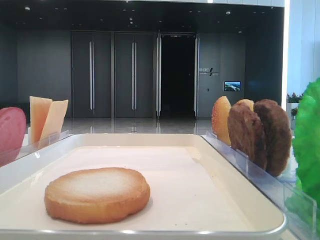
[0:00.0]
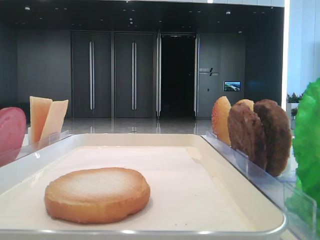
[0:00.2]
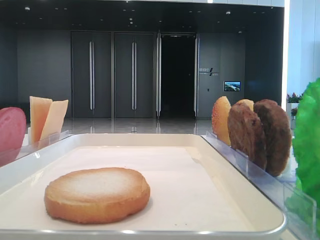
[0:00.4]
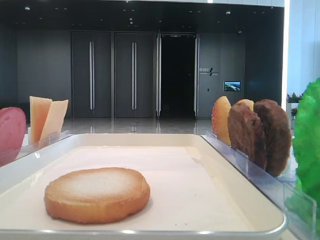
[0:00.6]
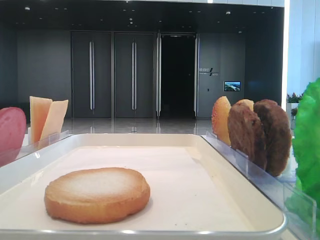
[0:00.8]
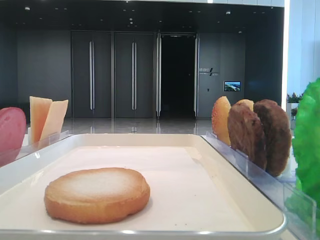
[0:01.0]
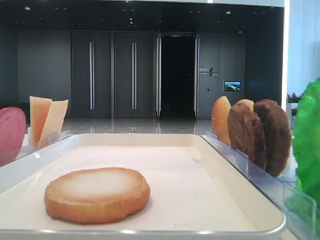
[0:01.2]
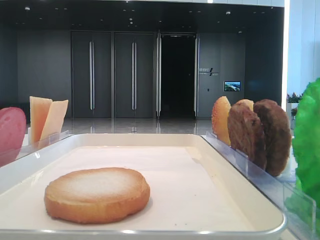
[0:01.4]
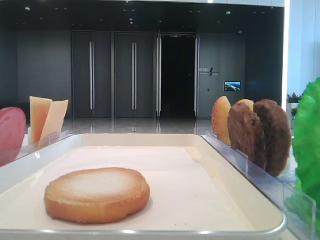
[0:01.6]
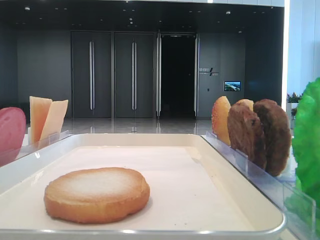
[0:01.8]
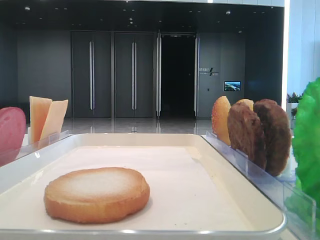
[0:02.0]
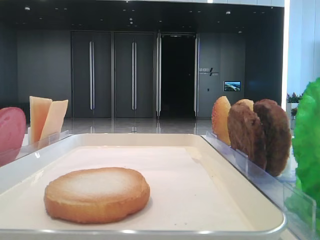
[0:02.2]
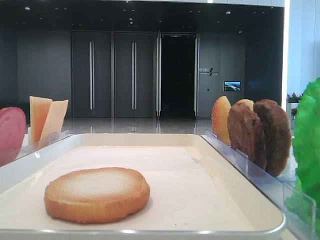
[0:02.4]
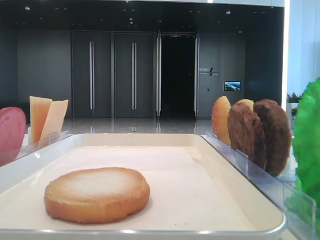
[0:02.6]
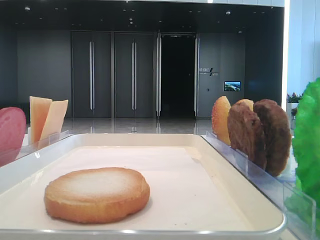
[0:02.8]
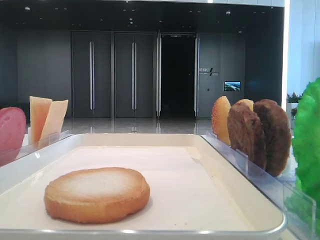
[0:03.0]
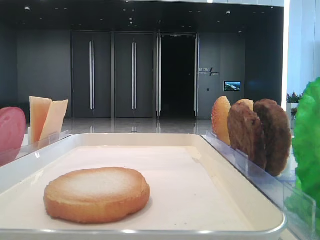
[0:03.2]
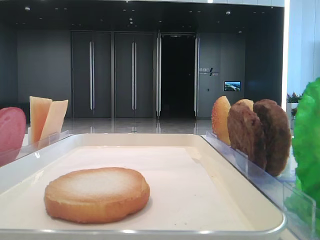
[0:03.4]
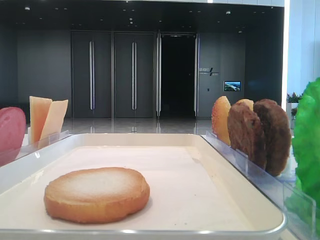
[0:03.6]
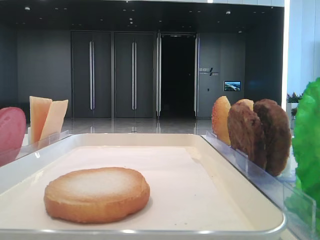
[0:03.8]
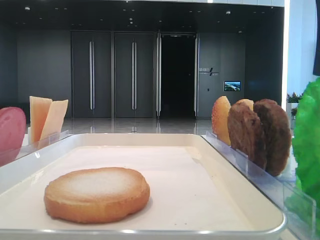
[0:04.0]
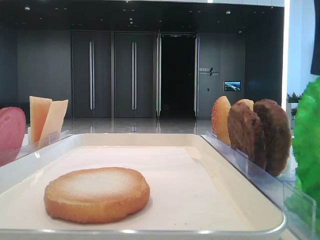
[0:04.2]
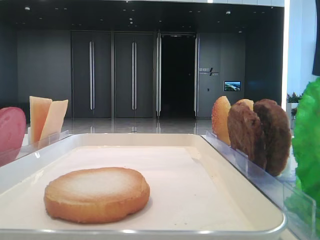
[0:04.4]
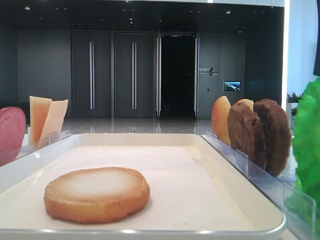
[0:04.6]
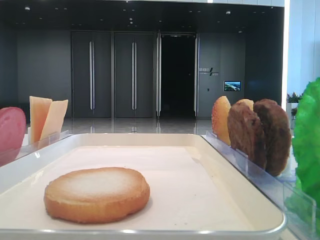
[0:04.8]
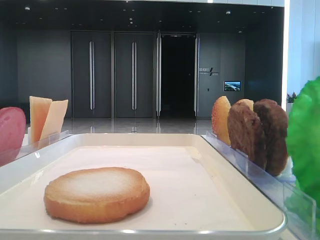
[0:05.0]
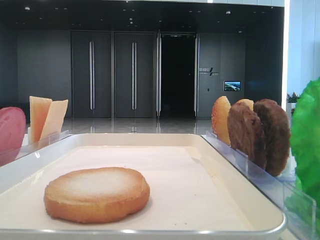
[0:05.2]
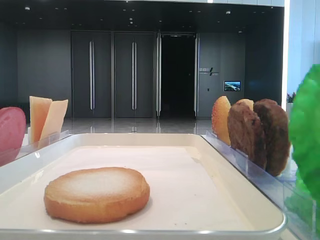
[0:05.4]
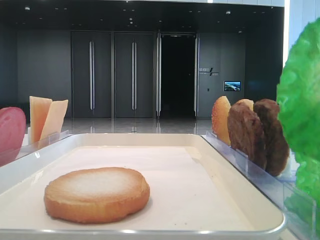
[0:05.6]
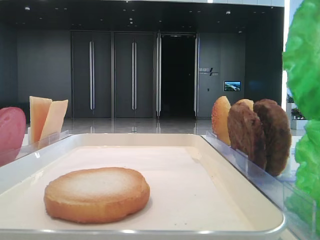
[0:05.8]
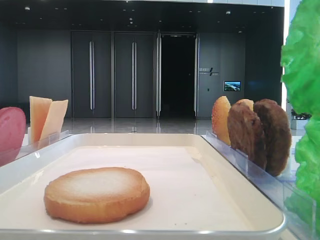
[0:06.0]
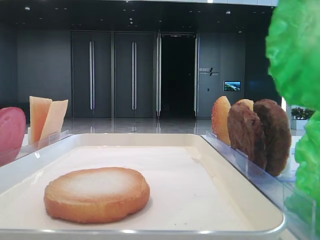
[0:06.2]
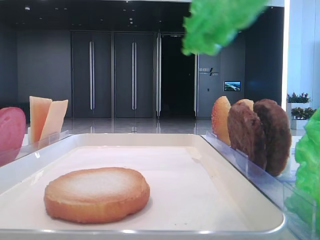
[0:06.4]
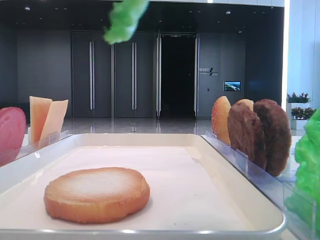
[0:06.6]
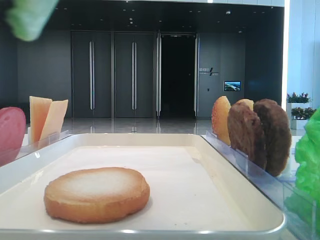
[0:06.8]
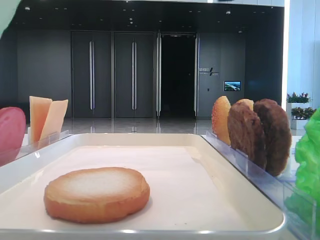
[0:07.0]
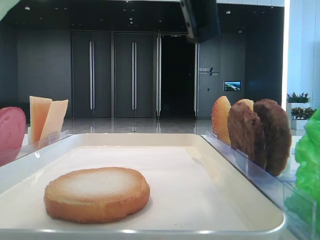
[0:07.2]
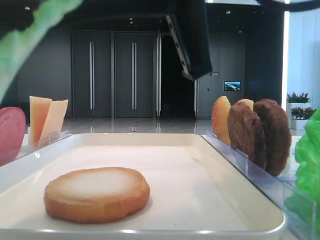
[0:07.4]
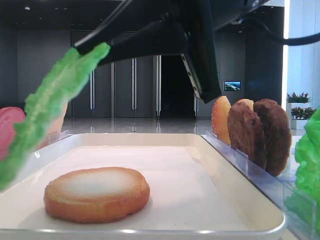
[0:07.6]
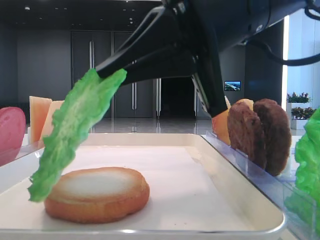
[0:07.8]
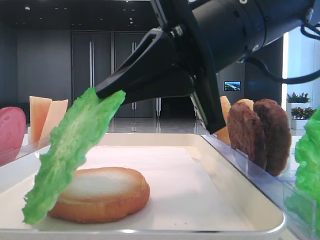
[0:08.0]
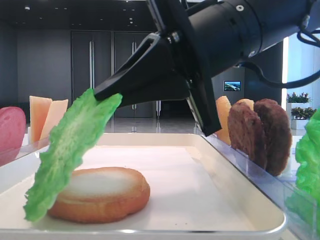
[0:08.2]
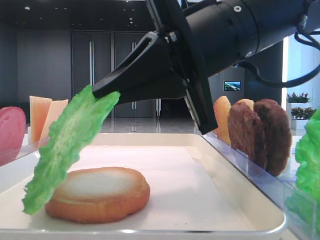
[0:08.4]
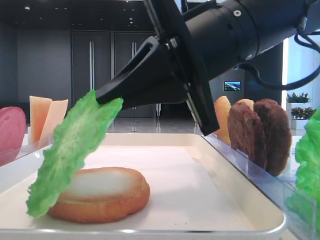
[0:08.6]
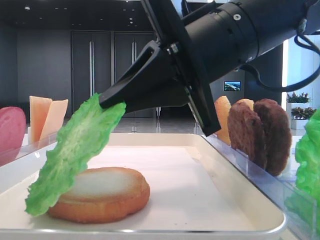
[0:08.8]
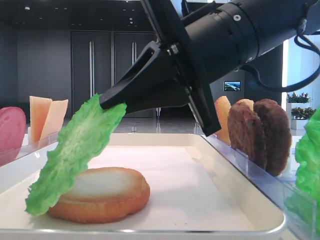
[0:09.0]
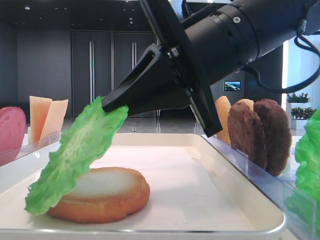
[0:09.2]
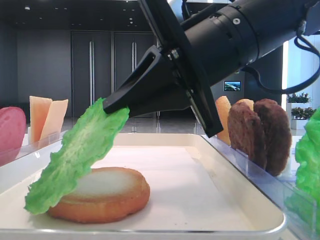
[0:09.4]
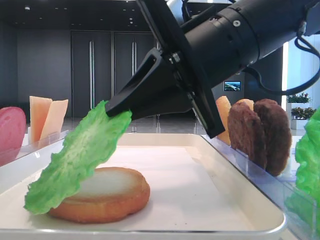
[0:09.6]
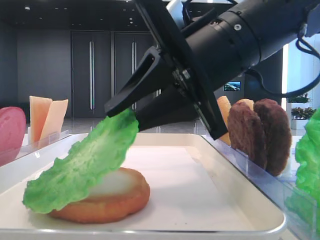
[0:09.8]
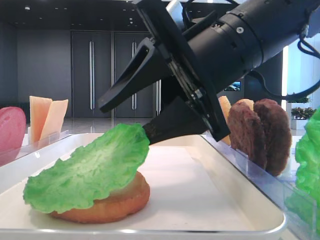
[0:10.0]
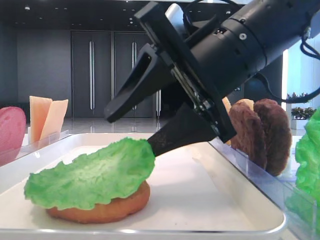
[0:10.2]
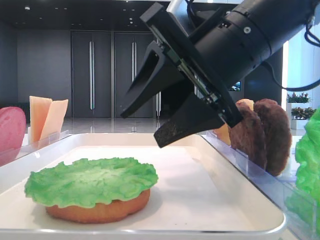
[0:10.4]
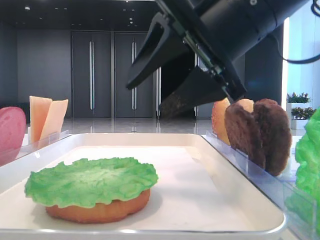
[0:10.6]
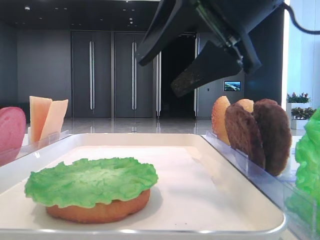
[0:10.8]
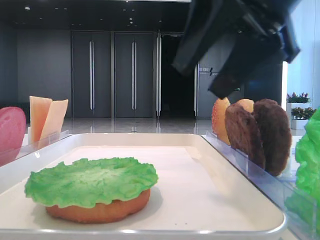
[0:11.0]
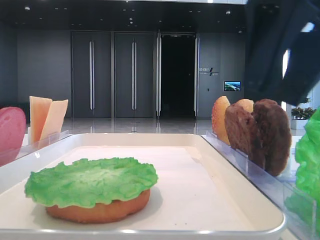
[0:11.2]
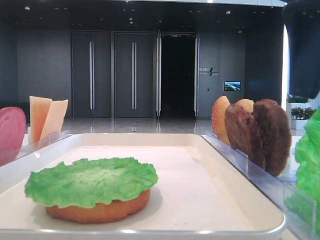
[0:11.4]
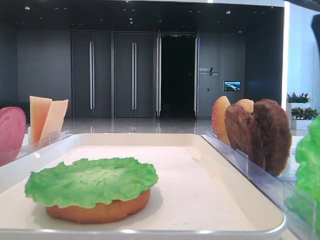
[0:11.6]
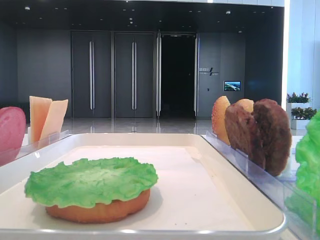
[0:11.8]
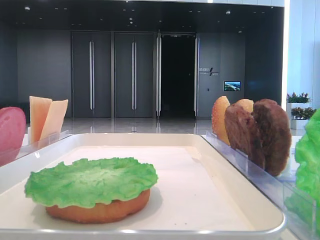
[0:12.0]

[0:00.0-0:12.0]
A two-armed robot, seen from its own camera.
Step, 0:05.0 to 0:10.2: Place the lettuce leaf on the bottom bread with the right hand.
0:04.4 to 0:06.0: The right gripper is displaced upward by roughly 5 cm, and closes.
0:06.0 to 0:07.6: The right gripper goes about 20 cm downward, to the left and forward.
0:09.0 to 0:10.4: The right gripper opens.
0:10.4 to 0:12.0: The right gripper travels to the right by about 25 cm.

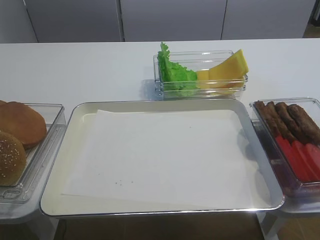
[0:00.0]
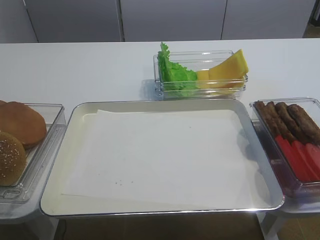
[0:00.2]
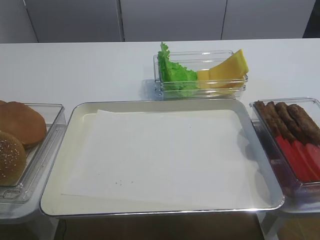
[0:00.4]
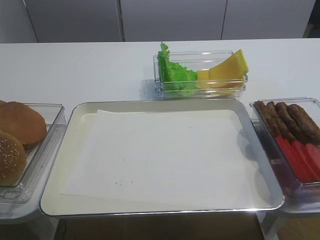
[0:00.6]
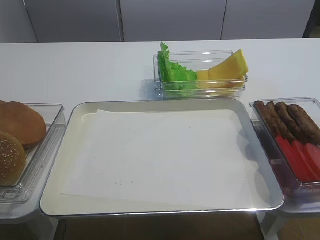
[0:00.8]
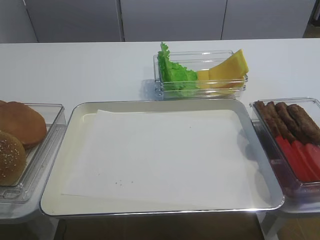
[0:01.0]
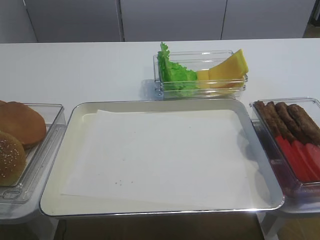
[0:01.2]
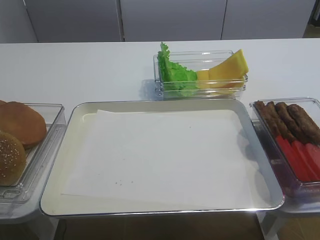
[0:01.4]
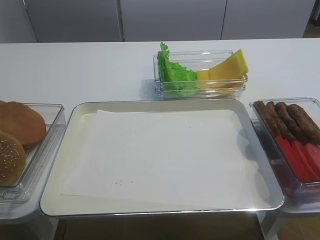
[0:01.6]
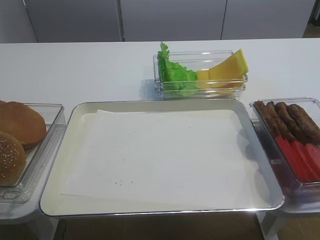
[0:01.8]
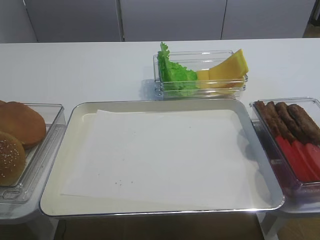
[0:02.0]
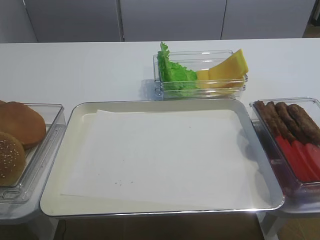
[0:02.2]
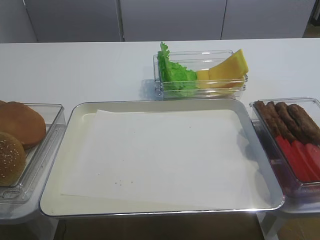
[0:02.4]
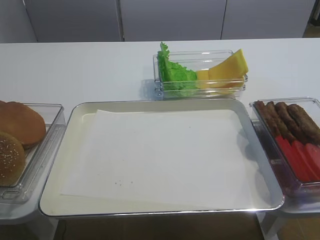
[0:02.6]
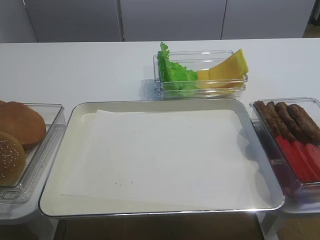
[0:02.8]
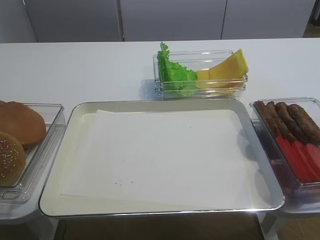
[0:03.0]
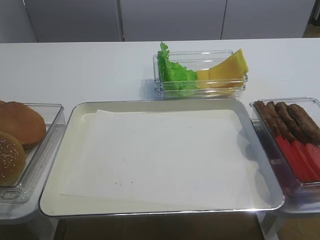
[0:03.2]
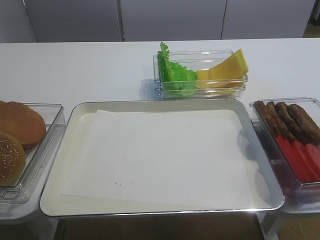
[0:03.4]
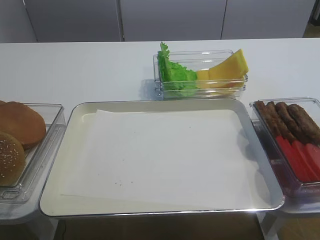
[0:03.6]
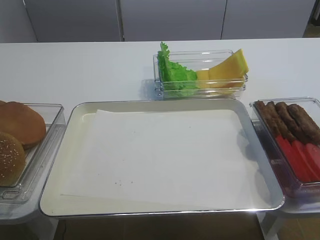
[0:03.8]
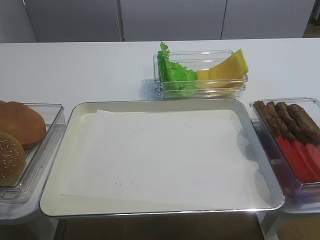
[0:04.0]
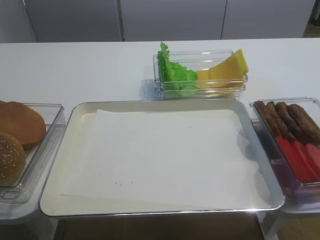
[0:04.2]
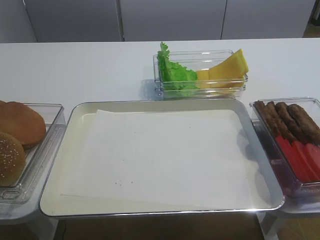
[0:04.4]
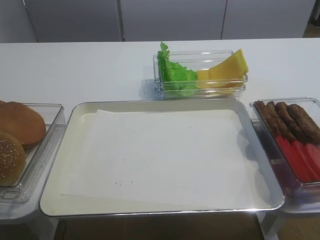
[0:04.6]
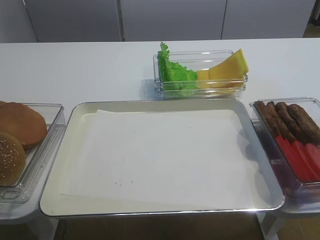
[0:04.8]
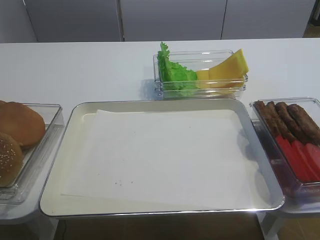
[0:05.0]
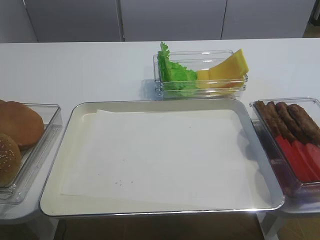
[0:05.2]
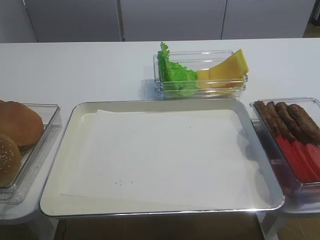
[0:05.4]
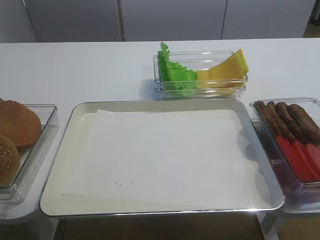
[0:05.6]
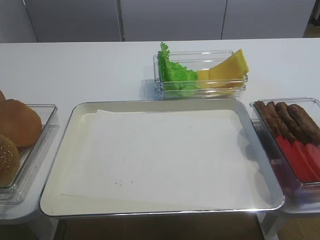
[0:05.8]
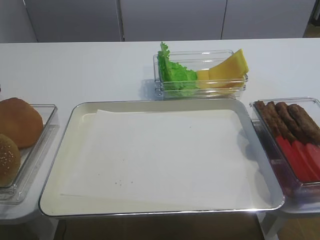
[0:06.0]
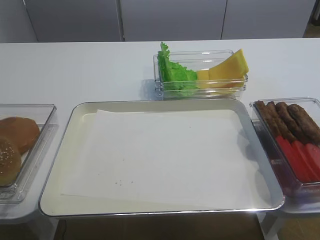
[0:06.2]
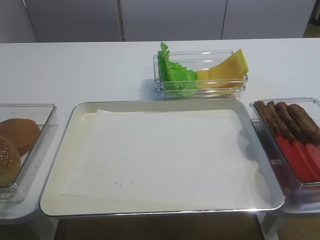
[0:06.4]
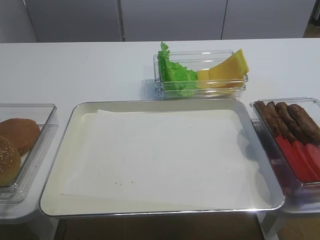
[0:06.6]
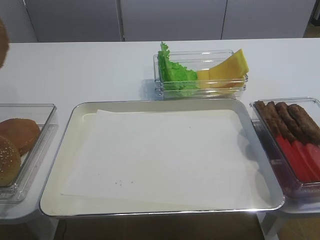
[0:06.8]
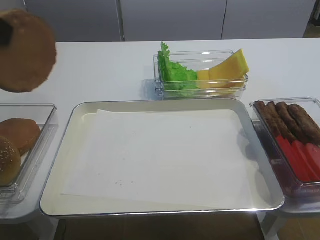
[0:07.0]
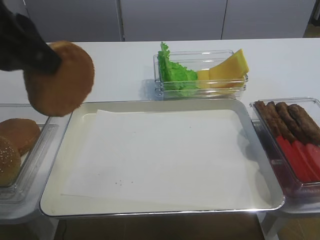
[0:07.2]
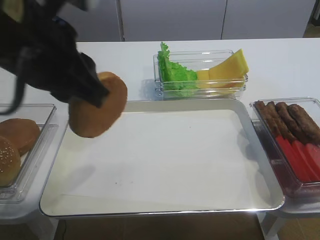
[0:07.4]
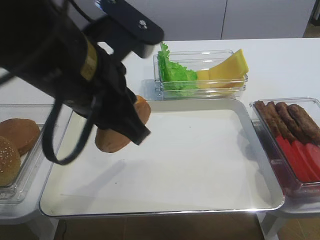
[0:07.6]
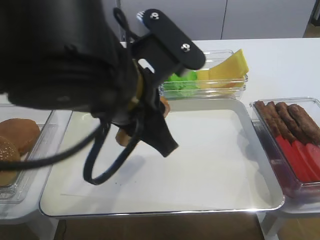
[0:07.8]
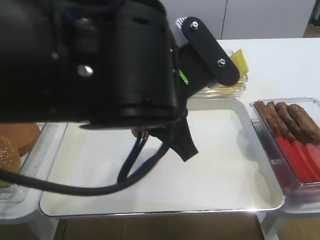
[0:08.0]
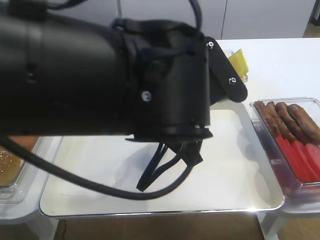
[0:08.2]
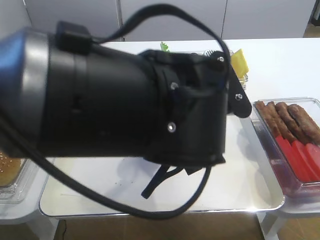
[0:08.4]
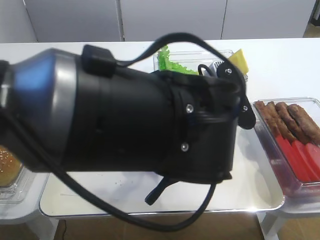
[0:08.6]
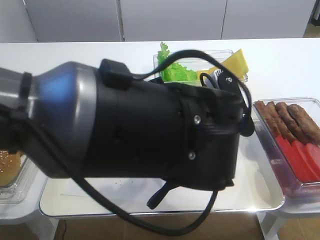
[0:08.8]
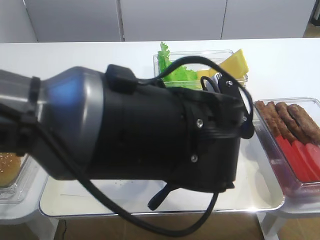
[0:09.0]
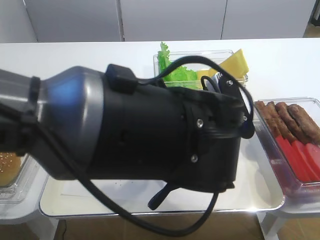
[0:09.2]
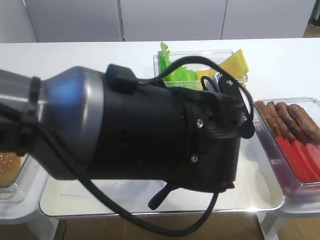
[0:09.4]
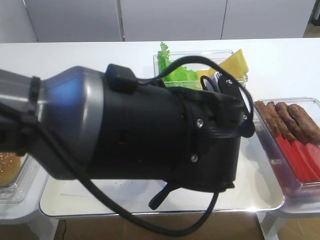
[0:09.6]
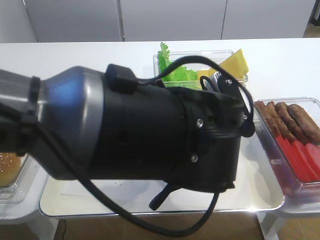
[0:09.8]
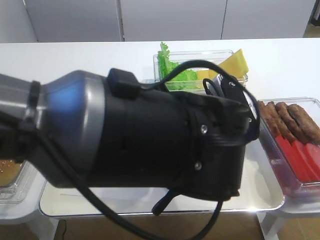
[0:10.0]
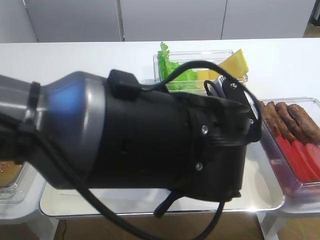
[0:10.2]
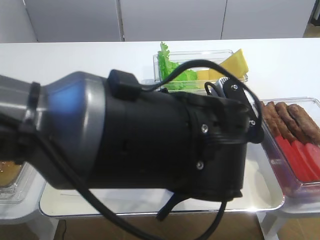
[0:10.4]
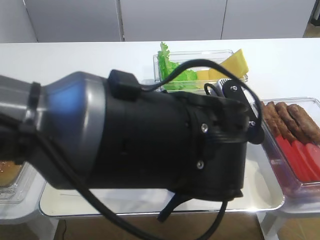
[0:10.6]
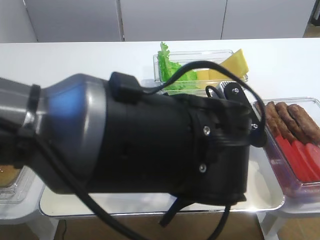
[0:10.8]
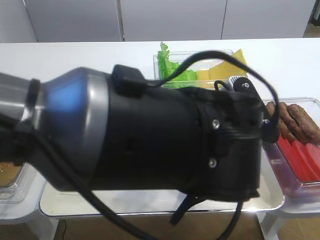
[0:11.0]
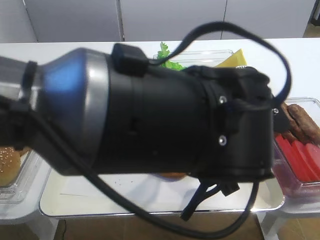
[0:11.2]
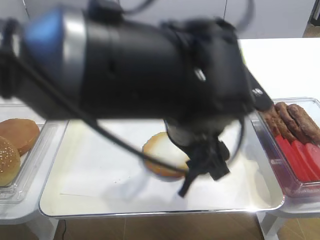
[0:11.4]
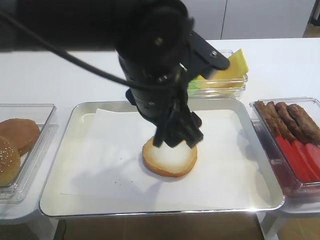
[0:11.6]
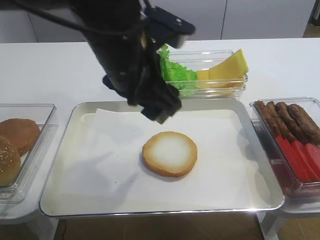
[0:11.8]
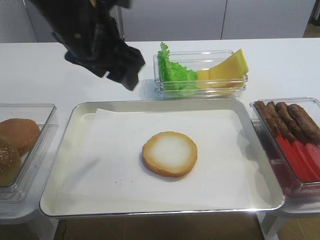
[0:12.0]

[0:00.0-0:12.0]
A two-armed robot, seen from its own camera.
Step, 0:00.0 to 0:06.6: Pick up the bread slice with the left gripper.
Step, 0:06.8 to 0:11.0: Place the bread slice on the tray with the left gripper.
0:04.4 to 0:06.0: The left gripper travels upward by approximately 5 cm.
0:06.0 to 0:07.6: The left gripper shifts roughly 25 cm to the right.
0:07.6 to 0:09.0: The left gripper shifts about 15 cm to the right and downward.
0:09.0 to 0:10.4: The left gripper opens its fingers.
0:10.4 to 0:12.0: The left gripper heads to the left, upward and forward, covering some 20 cm.
